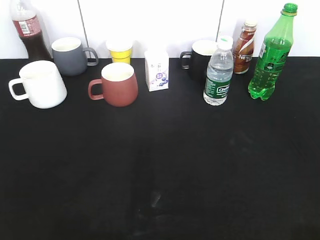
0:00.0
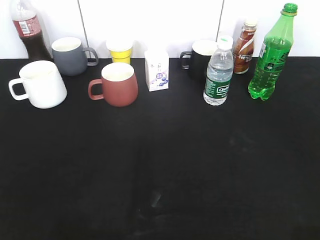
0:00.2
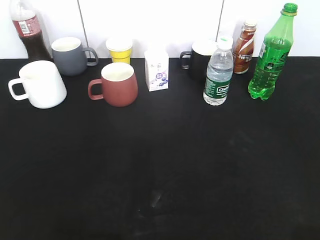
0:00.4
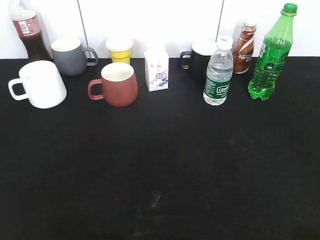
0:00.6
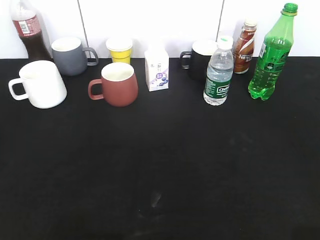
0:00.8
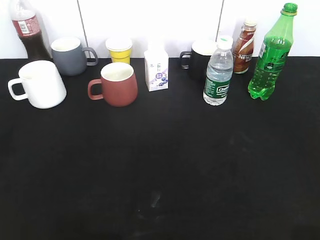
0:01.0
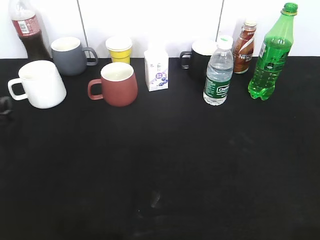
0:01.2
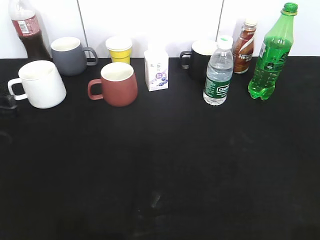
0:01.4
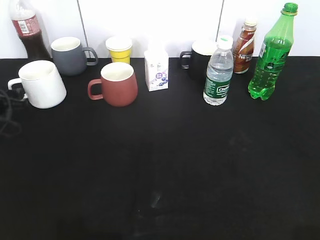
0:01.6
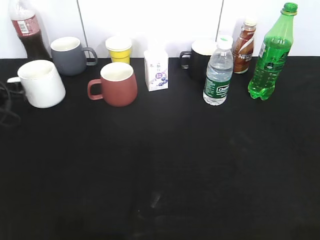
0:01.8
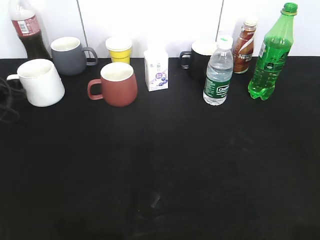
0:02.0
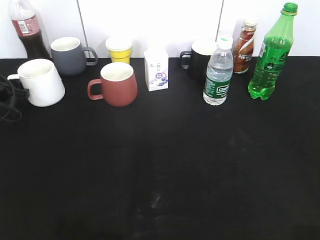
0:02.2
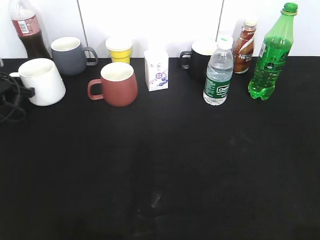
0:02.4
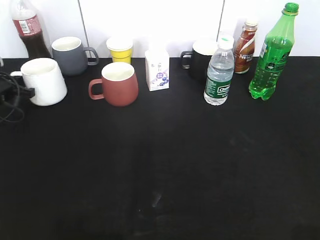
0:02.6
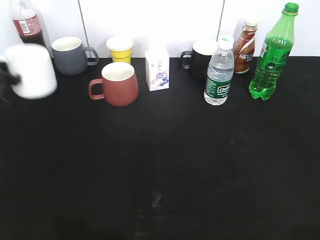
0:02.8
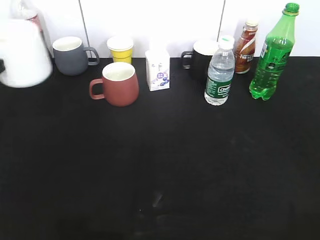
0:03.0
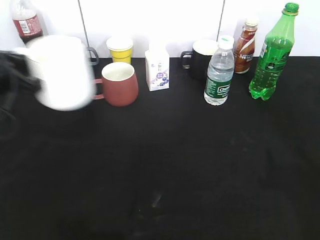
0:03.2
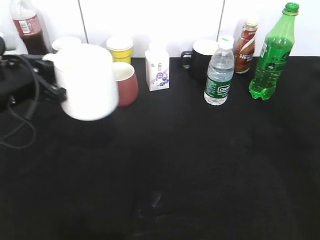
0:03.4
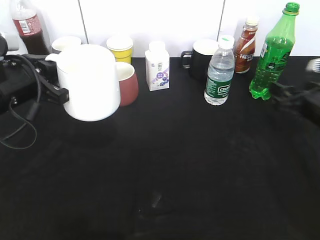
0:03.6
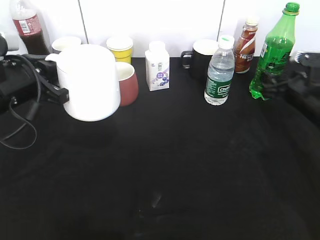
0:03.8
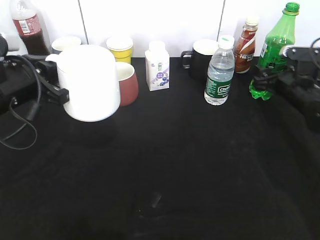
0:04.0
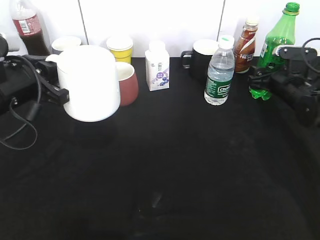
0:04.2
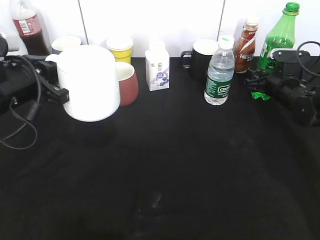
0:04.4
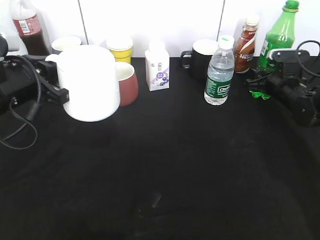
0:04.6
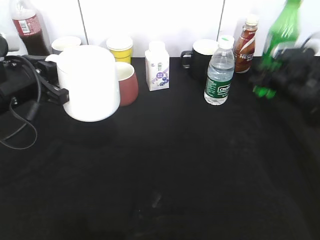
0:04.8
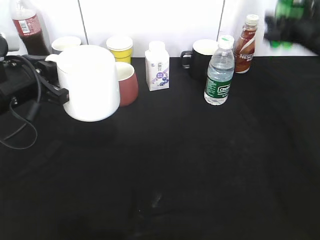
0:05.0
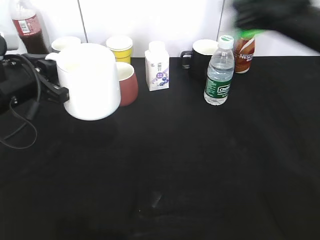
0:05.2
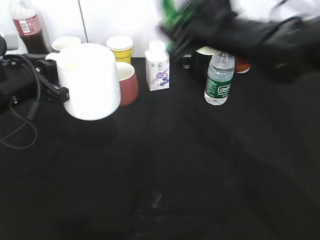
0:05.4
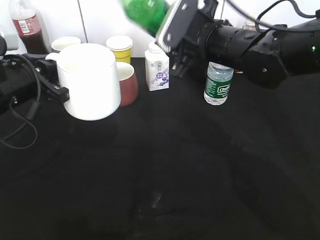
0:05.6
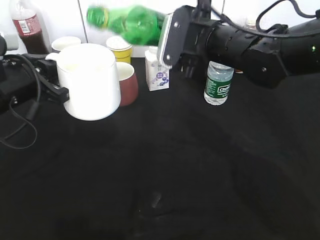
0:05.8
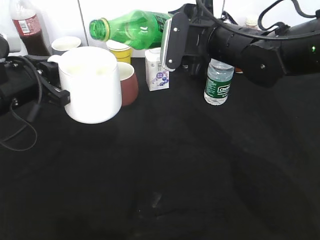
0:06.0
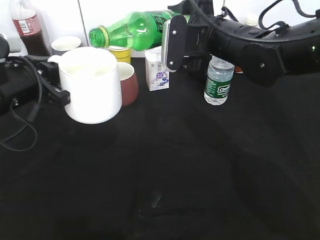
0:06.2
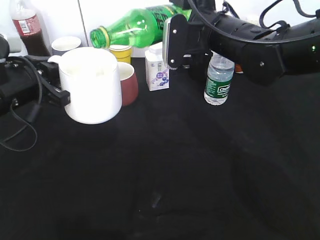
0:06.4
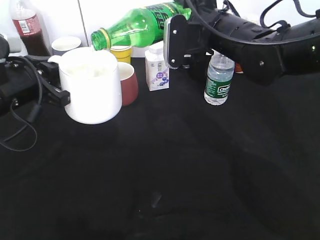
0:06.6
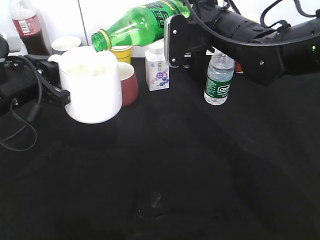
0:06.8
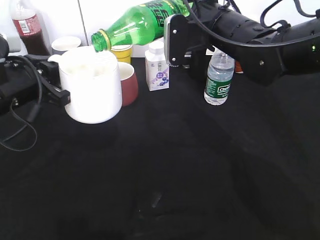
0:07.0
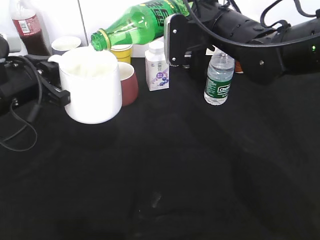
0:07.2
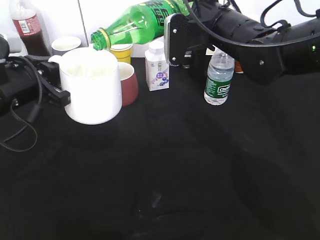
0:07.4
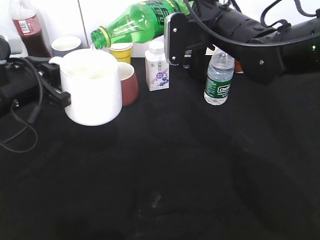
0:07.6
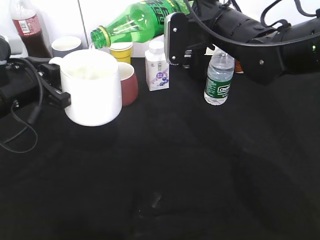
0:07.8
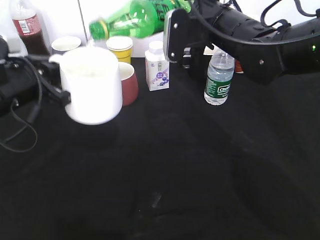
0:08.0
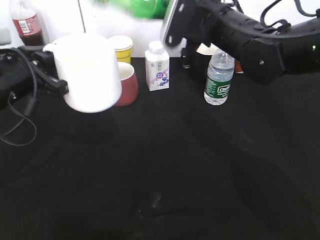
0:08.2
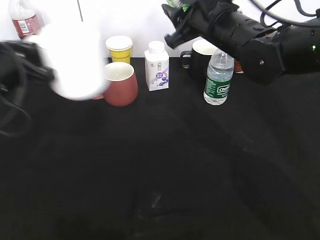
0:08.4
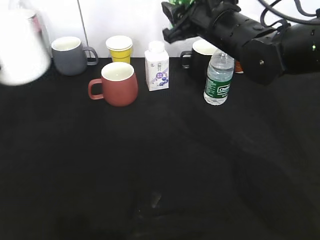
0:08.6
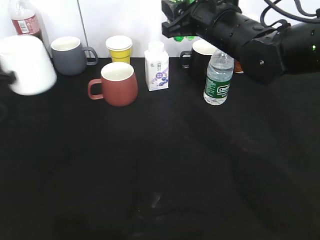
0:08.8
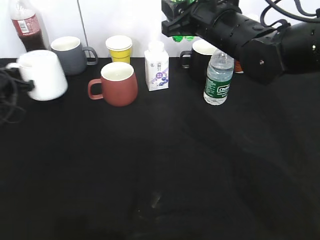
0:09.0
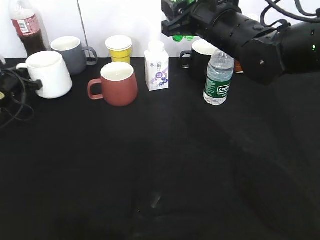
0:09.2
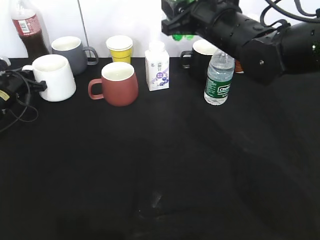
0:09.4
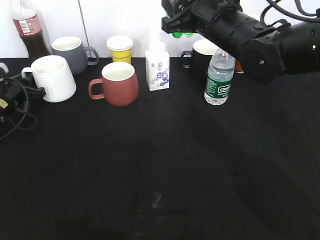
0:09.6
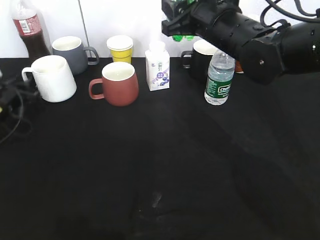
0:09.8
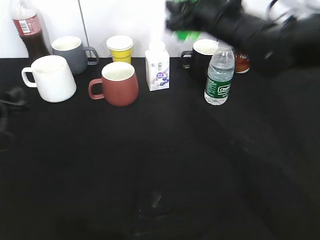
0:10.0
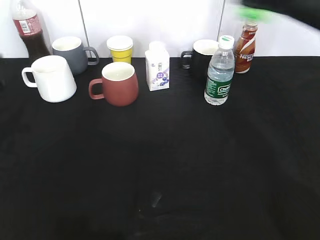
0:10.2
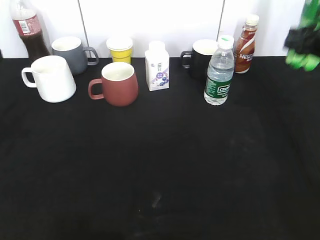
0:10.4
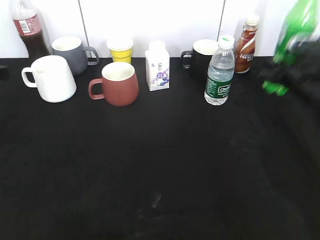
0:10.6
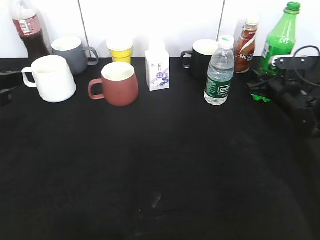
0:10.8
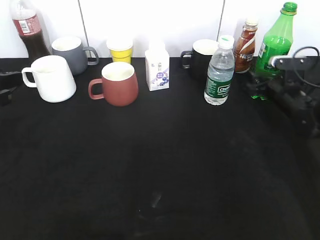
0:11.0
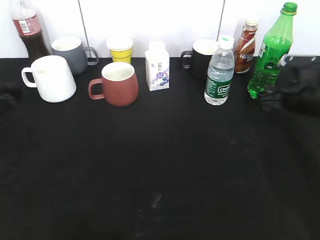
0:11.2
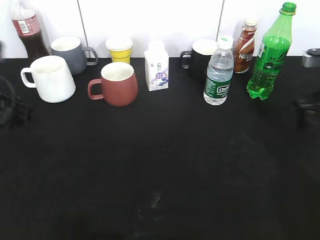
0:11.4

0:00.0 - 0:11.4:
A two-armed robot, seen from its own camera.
Step, 0:02.0 - 0:03.2: Lift the white cup with left gripper.
Step, 0:03.6 - 0:04.4: Grasp the bottle with sprite with right gripper.
Step, 0:04.8 - 0:08.0: Pour the sprite from bottle to cup with right gripper.
Step, 0:08.4 - 0:09.6: Place the white cup on the table with left gripper.
Step, 0:09.8 - 0:11.0: Place the sprite bottle on the table with right gripper.
0:00.0 - 0:01.4: The left gripper moves forward and downward, approximately 40 cm.
0:01.4 - 0:02.8: The left gripper heads forward, covering roughly 5 cm, and closes.
0:02.8 - 0:04.2: The right gripper moves forward and downward, some 50 cm. The left gripper is displaced to the right, backward and upward by about 20 cm.
0:04.2 - 0:05.6: The right gripper shifts approximately 25 cm to the left and upward, and closes up.
0:07.2 - 0:08.6: The left gripper travels to the left by some 10 cm.
0:08.6 - 0:10.0: The left gripper goes roughly 10 cm downward, and opens up.
0:10.0 - 0:11.4: The left gripper goes approximately 20 cm upward, to the right and backward, while the right gripper moves to the right, some 20 cm, moves some 20 cm downward and comes back, and opens up.

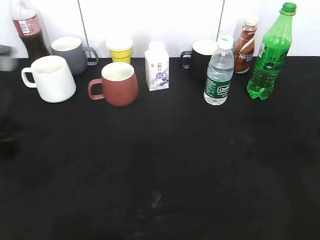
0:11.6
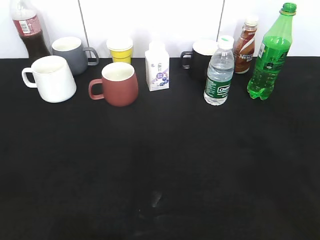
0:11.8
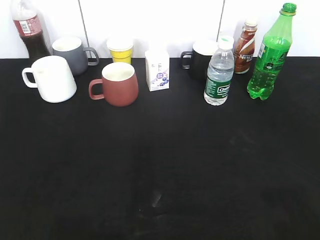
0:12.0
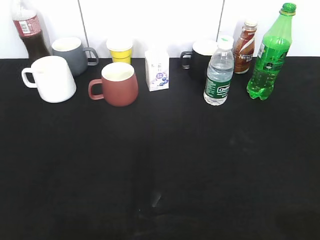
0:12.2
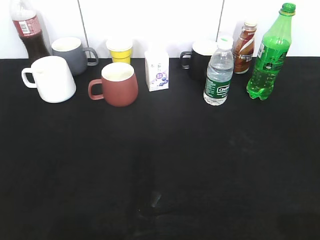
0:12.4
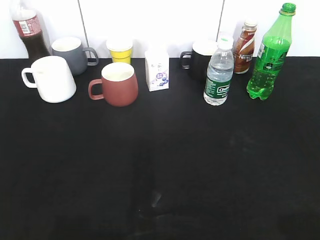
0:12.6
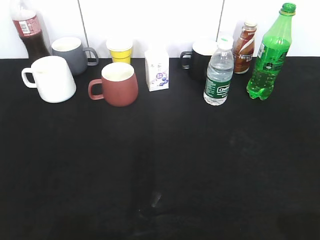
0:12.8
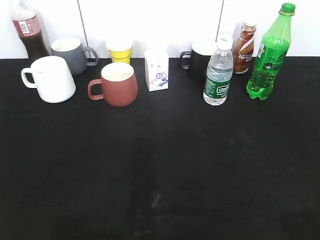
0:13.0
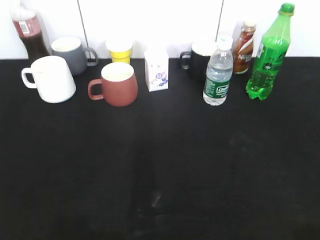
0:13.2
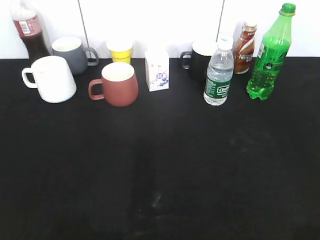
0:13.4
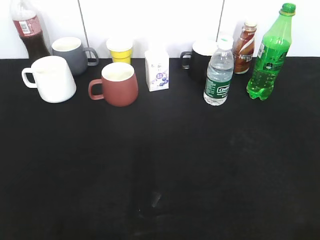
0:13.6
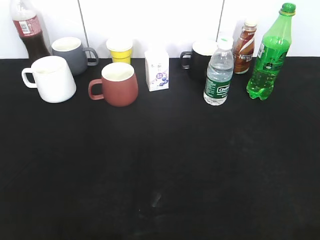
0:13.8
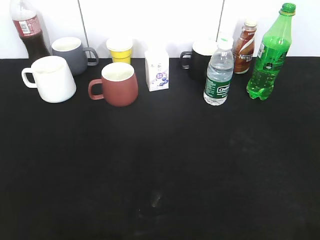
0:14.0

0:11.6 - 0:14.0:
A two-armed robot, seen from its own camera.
0:11.6 - 0:12.8: The left gripper shifts about 20 cm backward and to the left; the right gripper travels backward by some 25 cm.

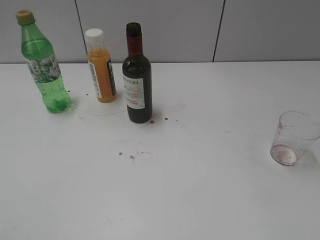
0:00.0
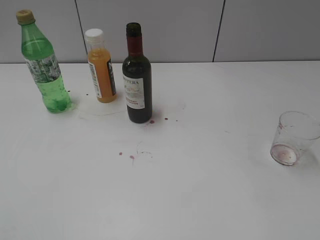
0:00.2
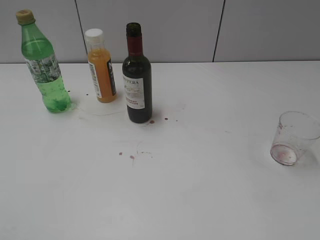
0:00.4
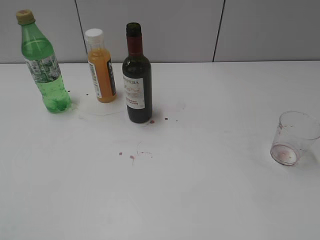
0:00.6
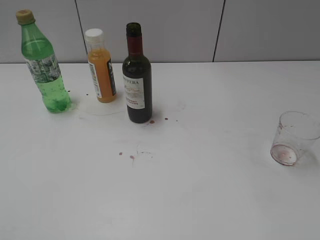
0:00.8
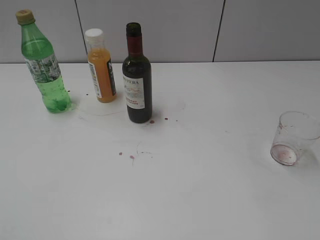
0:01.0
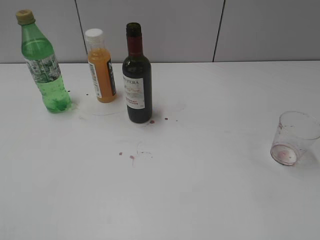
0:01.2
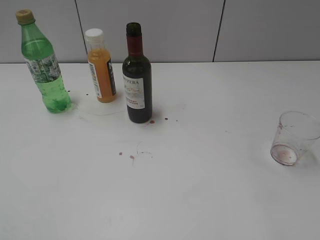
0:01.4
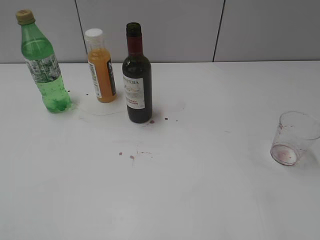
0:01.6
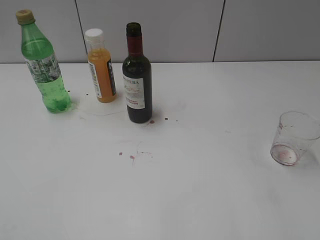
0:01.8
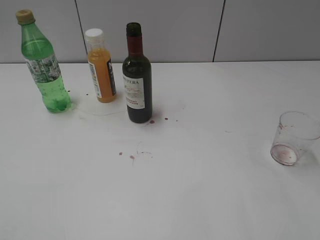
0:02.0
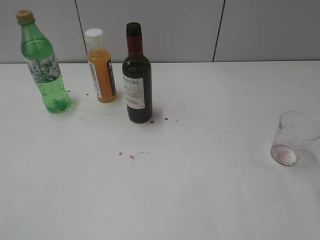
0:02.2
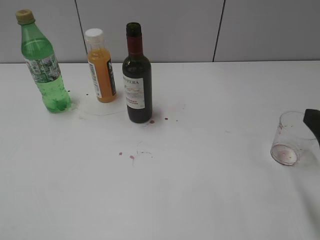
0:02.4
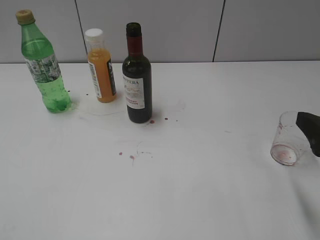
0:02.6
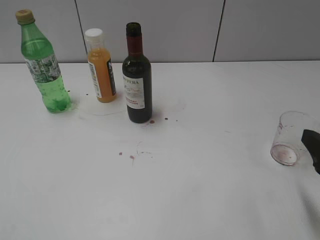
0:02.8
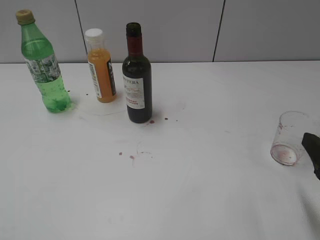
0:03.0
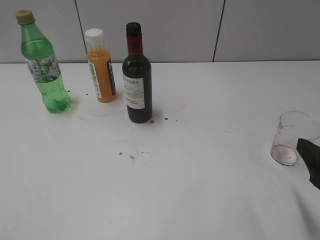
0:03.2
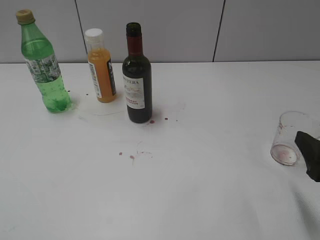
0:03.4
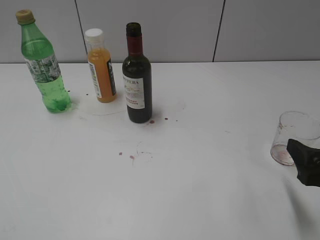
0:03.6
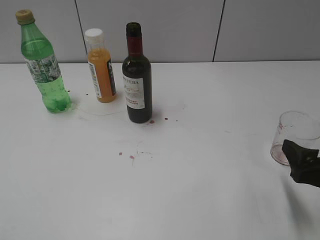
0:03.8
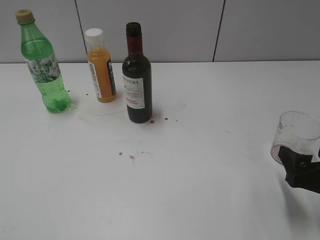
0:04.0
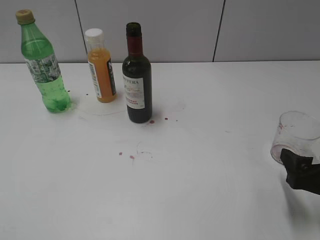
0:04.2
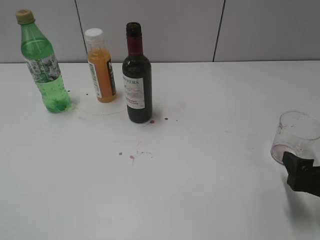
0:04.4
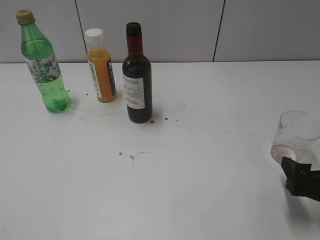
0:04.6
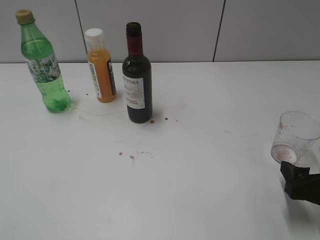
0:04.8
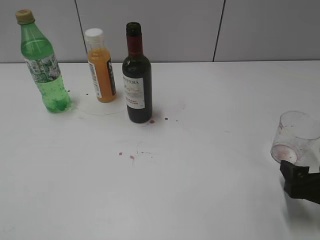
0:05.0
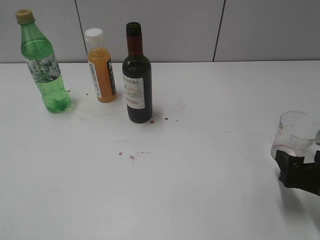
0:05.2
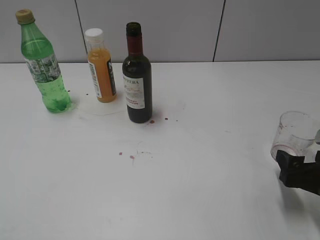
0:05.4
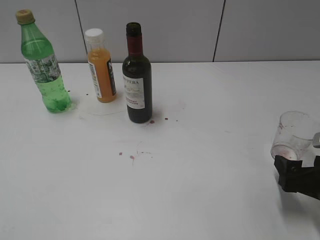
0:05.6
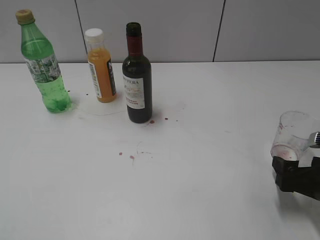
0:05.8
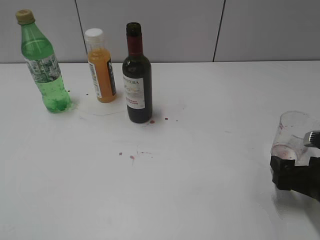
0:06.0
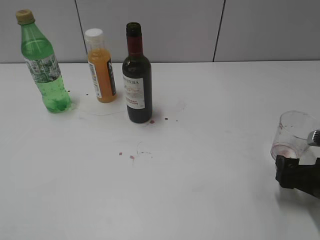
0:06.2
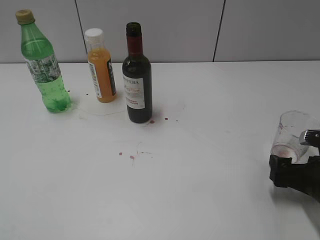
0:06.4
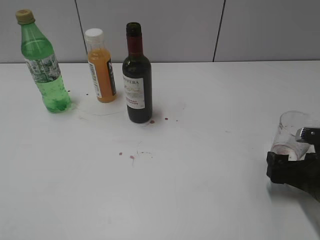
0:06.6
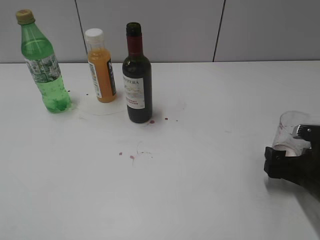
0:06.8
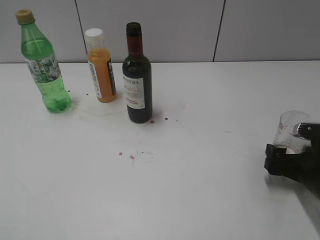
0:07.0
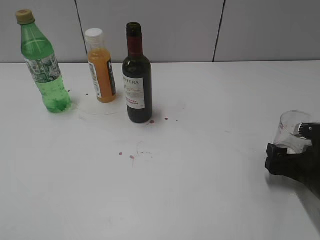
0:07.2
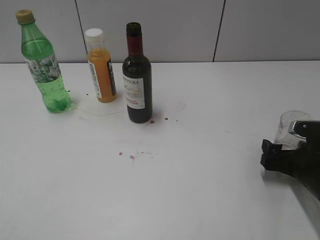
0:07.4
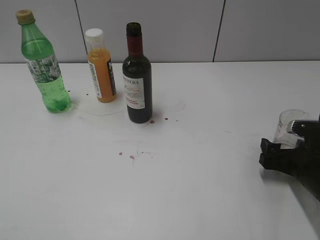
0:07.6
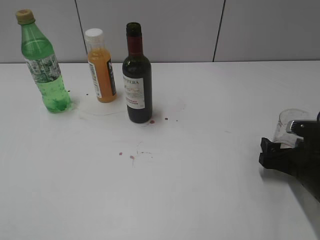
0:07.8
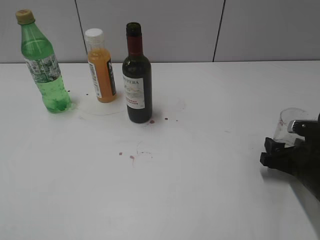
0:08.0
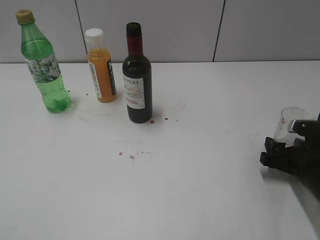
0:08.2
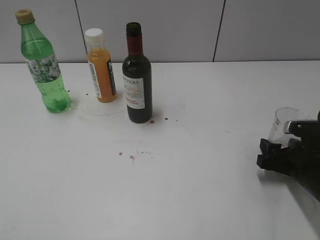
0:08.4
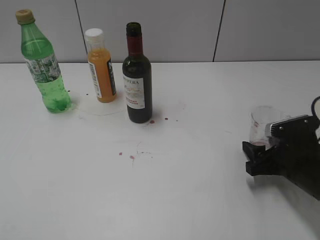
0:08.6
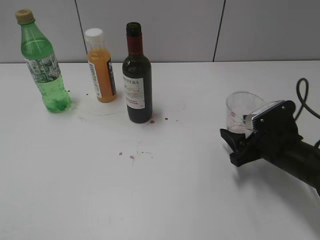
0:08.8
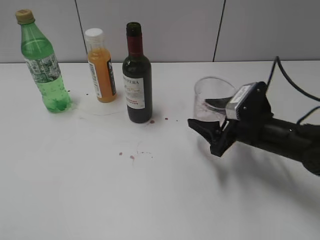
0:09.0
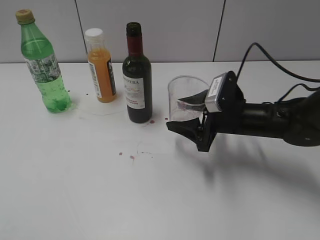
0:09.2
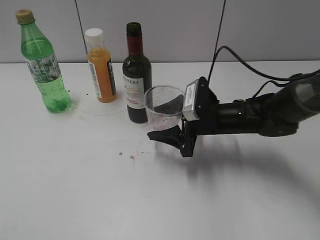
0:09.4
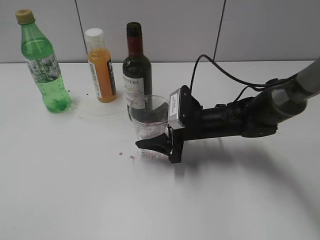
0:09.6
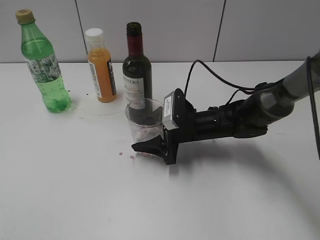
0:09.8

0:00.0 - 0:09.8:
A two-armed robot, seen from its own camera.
Step, 0:01.0 - 0:08.0: Grasp the transparent cup with right gripper.
0:01.4 - 0:02.8: The right gripper travels downward and forward by roughly 15 cm.
0:02.8 - 0:04.2: The right gripper heads downward, covering roughly 5 cm.
0:04.2 - 0:05.6: There are only small adjustments of the grippers.
0:05.6 - 0:07.0: The right gripper moves approximately 5 cm.
0:07.0 - 0:08.4: The right gripper closes up.
0:08.4 - 0:09.8: The right gripper shifts about 20 cm to the left and forward.
